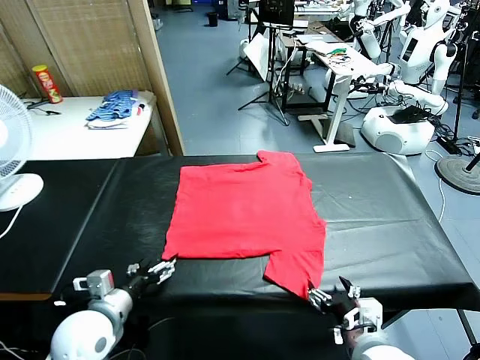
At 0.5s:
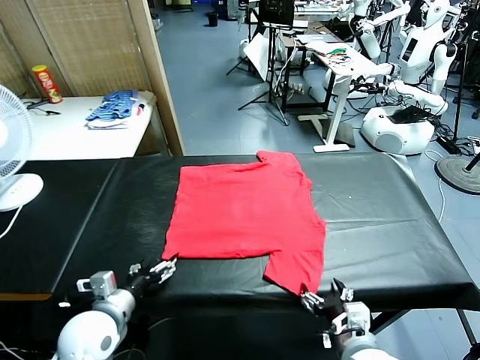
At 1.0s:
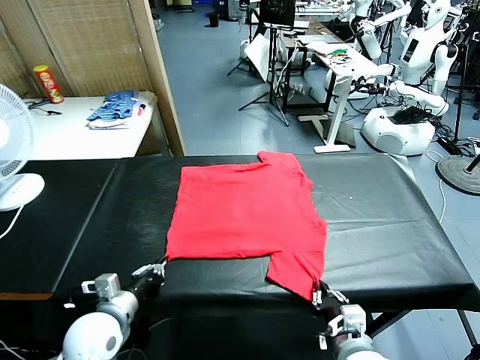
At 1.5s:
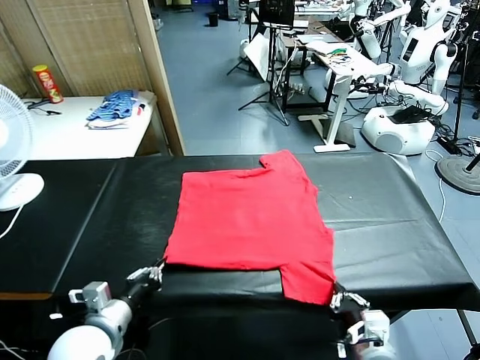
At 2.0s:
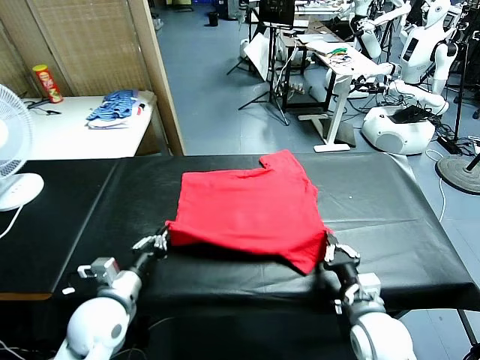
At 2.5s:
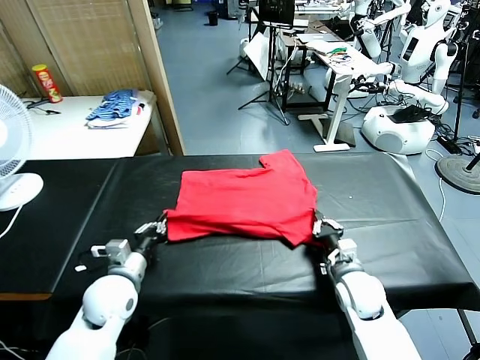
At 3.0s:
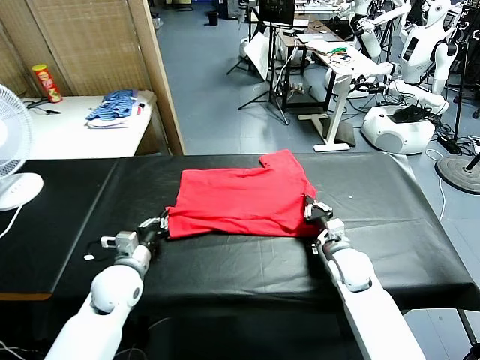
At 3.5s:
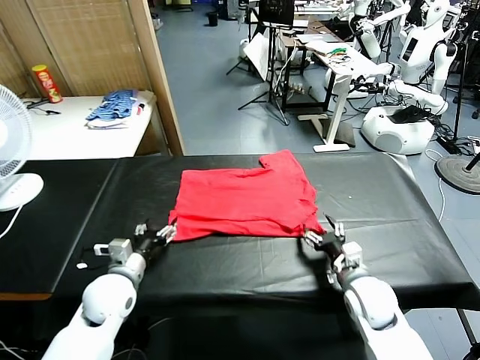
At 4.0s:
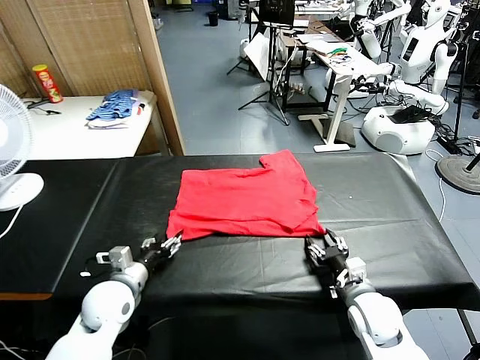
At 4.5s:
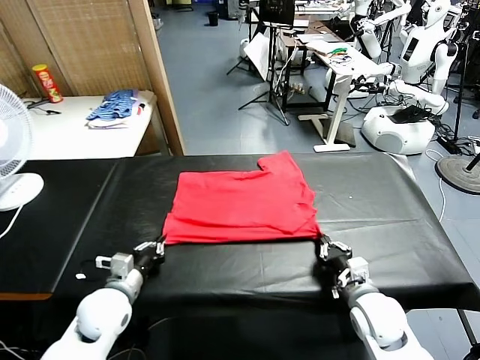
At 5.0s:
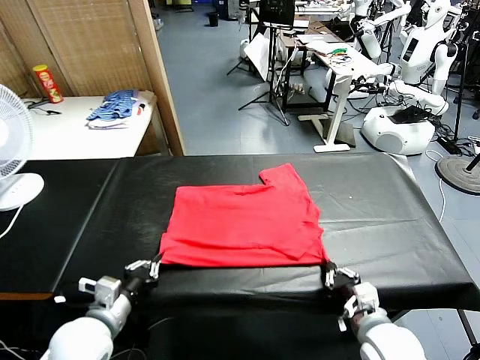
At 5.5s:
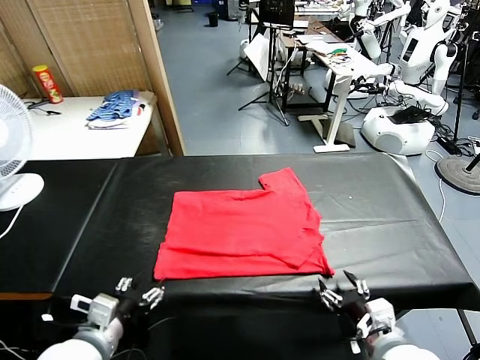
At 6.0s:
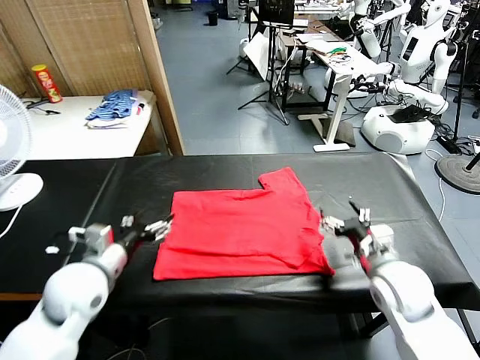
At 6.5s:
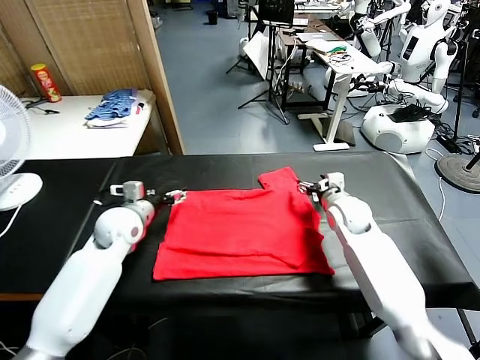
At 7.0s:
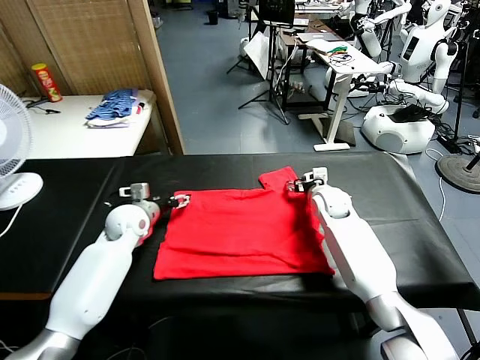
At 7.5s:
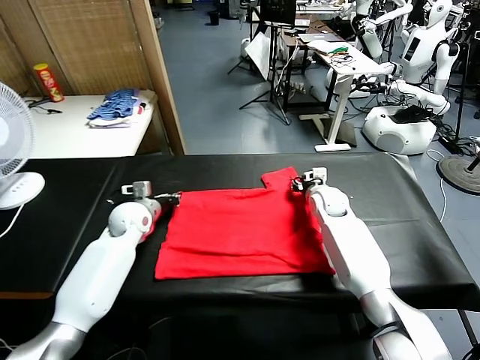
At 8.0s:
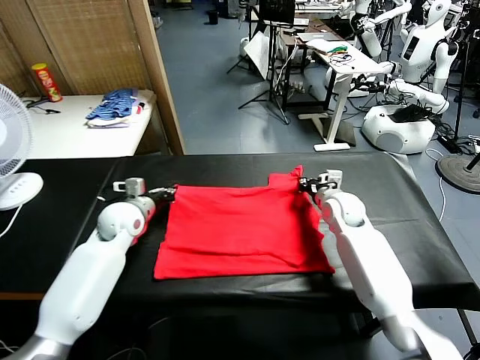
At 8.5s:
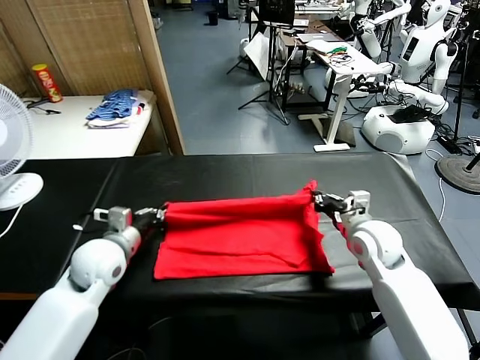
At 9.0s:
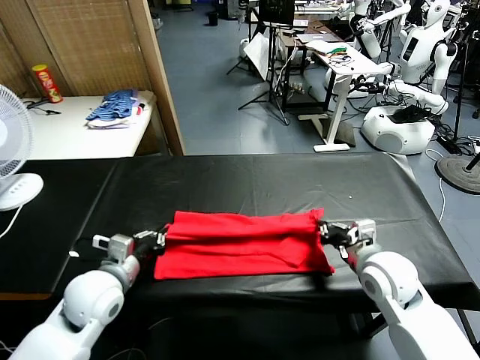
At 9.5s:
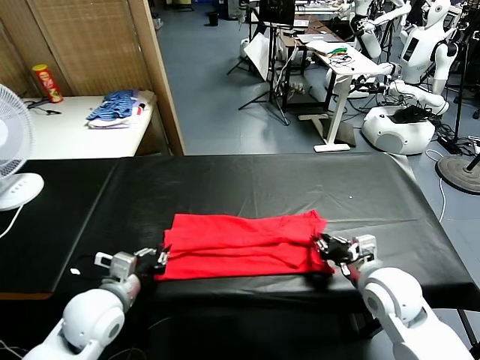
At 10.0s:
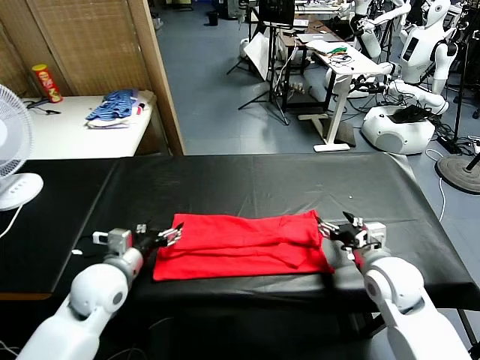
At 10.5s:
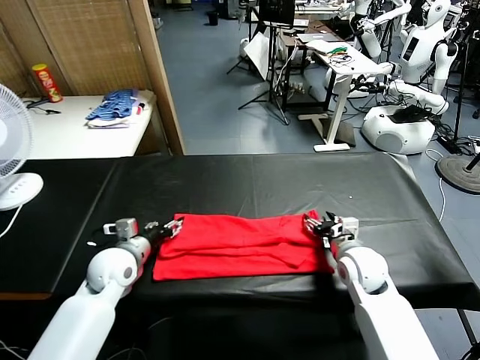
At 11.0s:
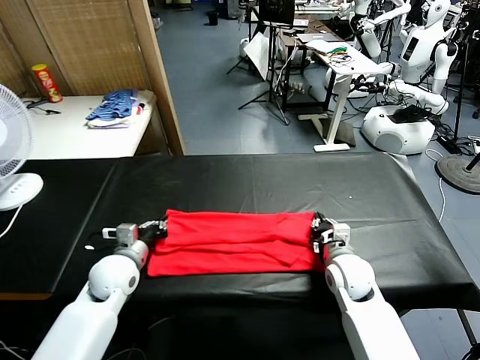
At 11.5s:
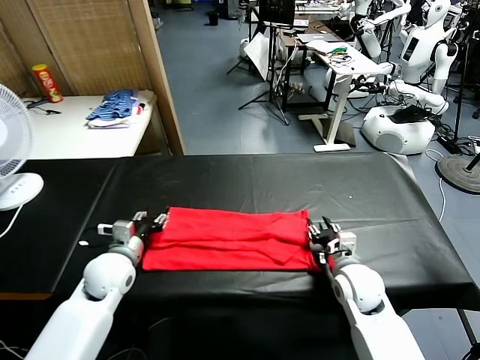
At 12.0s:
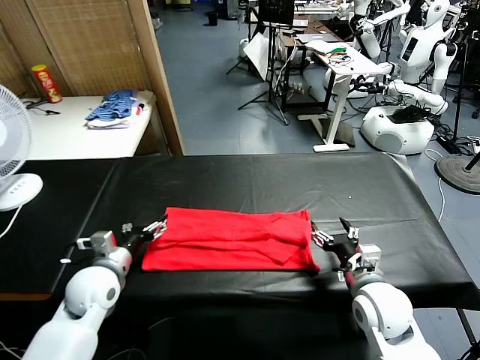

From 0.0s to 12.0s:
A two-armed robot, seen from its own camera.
Task of the whole recording: fold and organize the clothes.
Step, from 0.0s to 1.0s: use both grippers simultaneously to clamp the lower edge of the clothing fabric.
Step, from 1.5s to 3.5s: use both grippers to drag the lower edge of the fabric forward and fold it over the upper edge.
Step, from 4.0s to 5.5s: Drag the clothes downward with both gripper.
Step, from 6.0s to 7.5s: use both grippers simultaneously to clamp the upper edge of the clothing fabric.
Step, from 8.0s to 9.5s: use both grippers to drag the upper edge of the fabric backward and fold it over the lower edge.
From 2.0s to 4.0s: The right gripper goes forward and returns, about 5 cm each way, and opens, then closes once more. The left gripper opens, then closes again.
From 4.0s to 6.0s: The left gripper goes some 10 cm upward, goes backward and returns, about 10 cm each way, and opens, while the right gripper heads forward and upward, covering about 15 cm, and opens its fingers.
From 6.0s to 8.0s: The right gripper goes forward and returns, approximately 15 cm each way, and closes its fingers; the left gripper travels forward by roughly 10 cm, and closes up.
From 8.0s to 10.0s: The grippers both shift backward by some 10 cm. The right gripper opens, while the left gripper opens up.
From 10.0s to 12.0s: The right gripper goes approximately 5 cm backward, and closes, then opens again. The left gripper closes, then opens again.

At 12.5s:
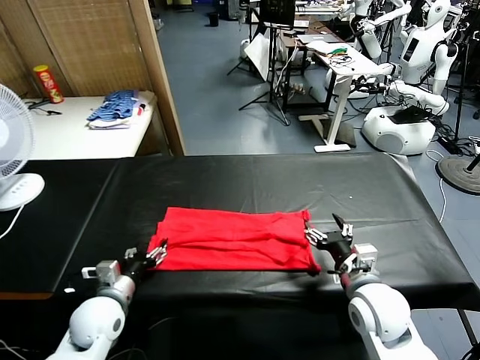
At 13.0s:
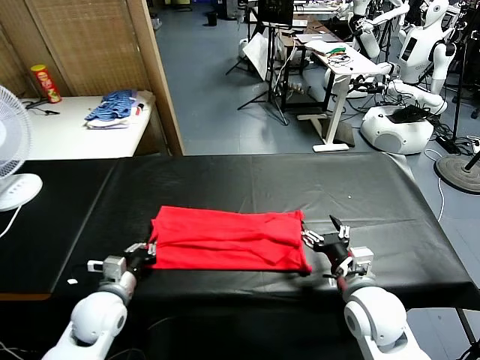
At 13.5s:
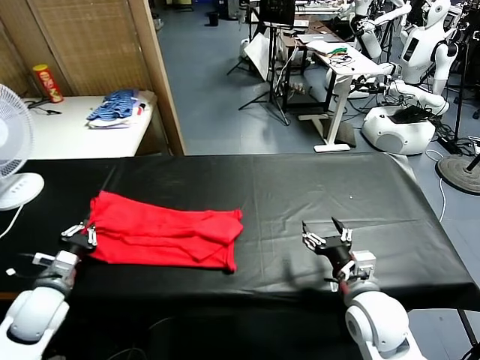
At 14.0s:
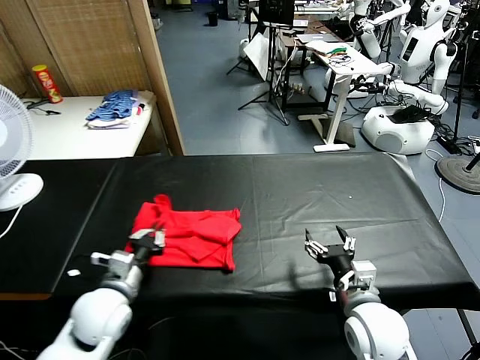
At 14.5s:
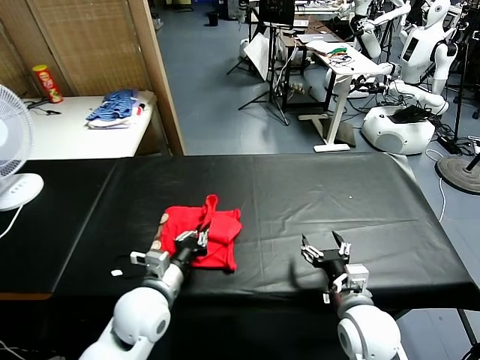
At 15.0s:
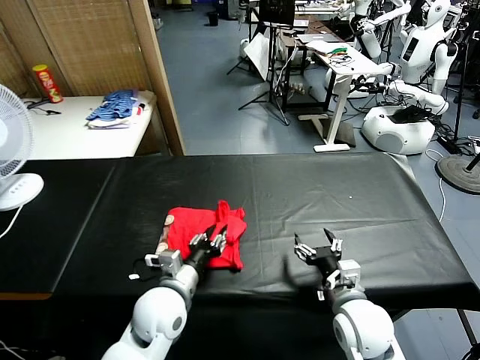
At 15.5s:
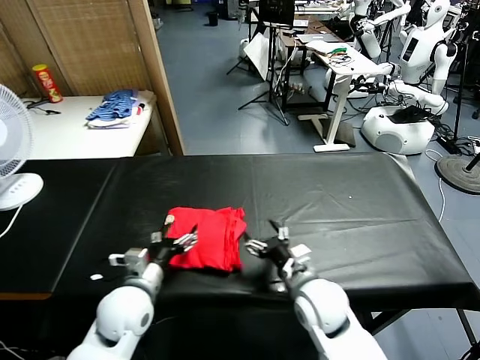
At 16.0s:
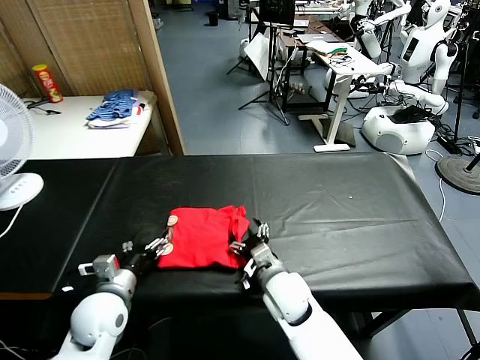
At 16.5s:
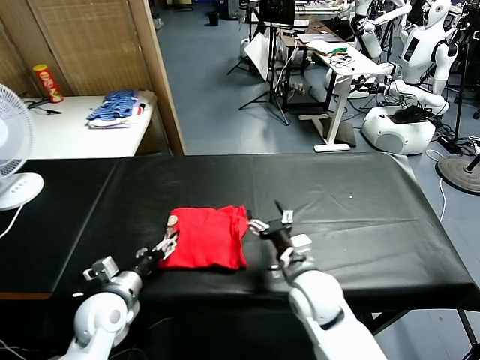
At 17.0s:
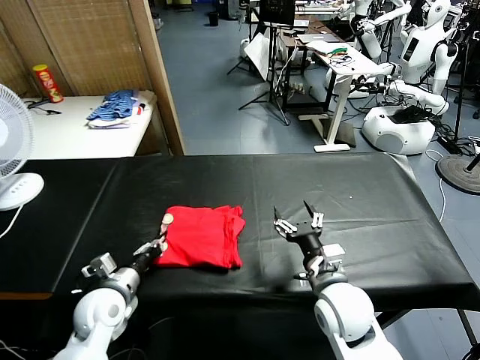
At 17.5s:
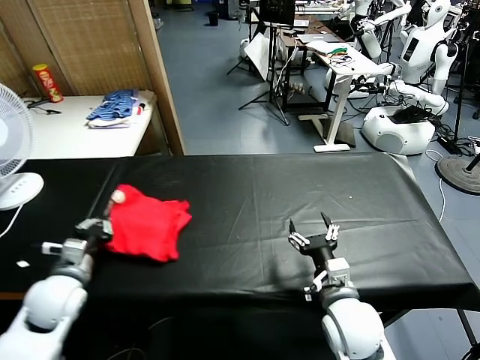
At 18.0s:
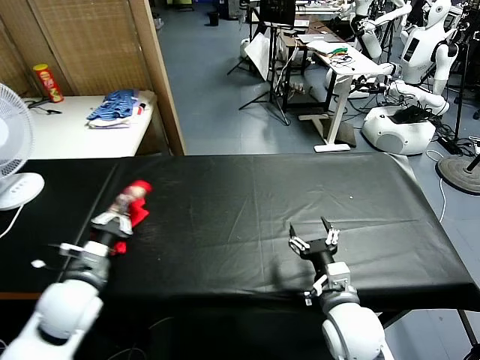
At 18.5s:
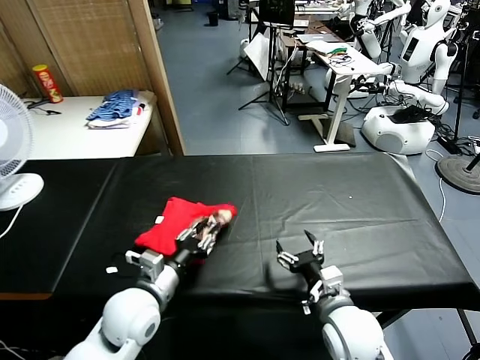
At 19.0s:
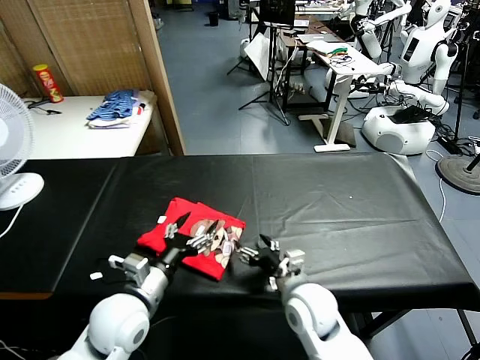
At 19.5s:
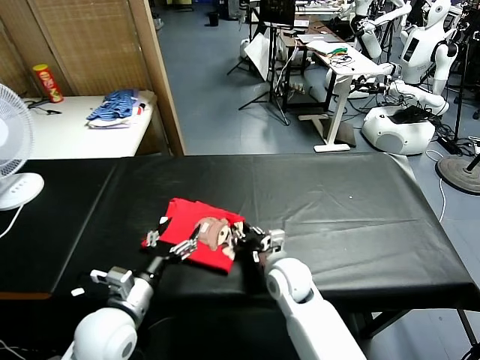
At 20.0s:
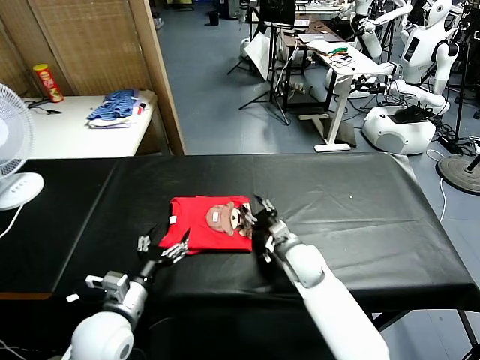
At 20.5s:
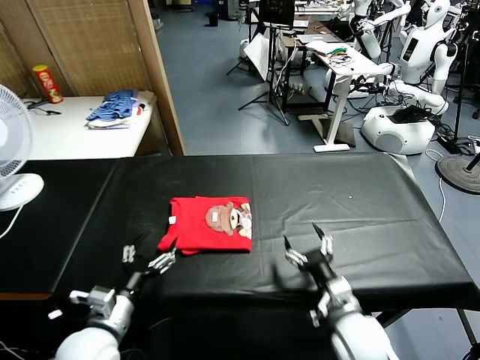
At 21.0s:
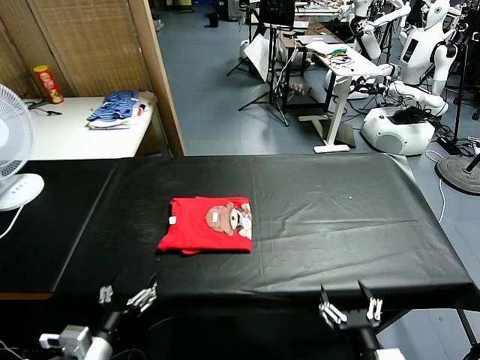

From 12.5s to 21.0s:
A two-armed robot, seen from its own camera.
Task of the whole recording: fold and organize the clothes.
Step, from 13.0s to 15.0s: use the left gripper to drag the left edge of the fabric to the left and folds it over the right edge.
Step, from 15.5s to 18.5s: Flip the folded clothes over with left gripper.
Step, from 19.0s to 20.0s: Drag the clothes to the center of the table.
From 12.5s to 14.5s: The left gripper goes about 10 cm to the right and upward, and closes up.
From 14.5s to 16.5s: The left gripper shifts approximately 10 cm to the left, and opens, while the right gripper moves to the left and forward, some 10 cm.
From 16.5s to 19.0s: The left gripper travels to the right and upward by about 10 cm, and closes, then reopens.
From 19.0s to 21.0s: The left gripper heads backward and to the left, covering roughly 15 cm, while the right gripper travels backward and to the right by about 20 cm, and closes, then opens again.
